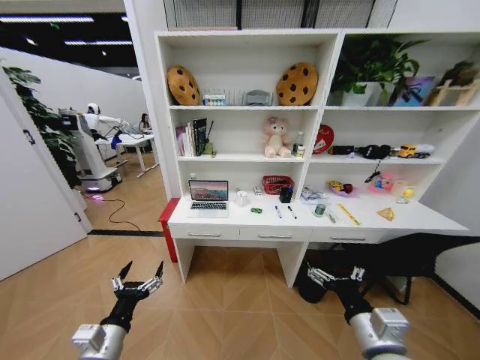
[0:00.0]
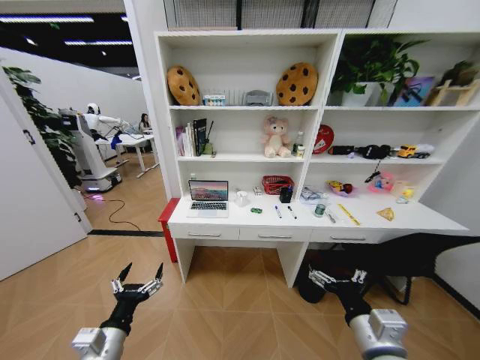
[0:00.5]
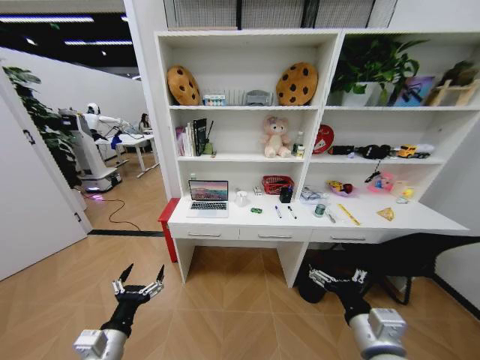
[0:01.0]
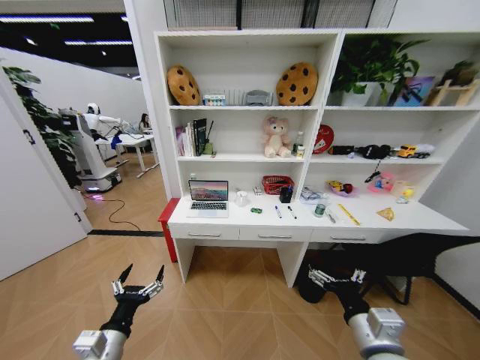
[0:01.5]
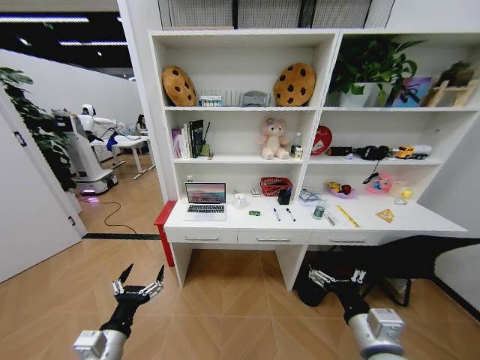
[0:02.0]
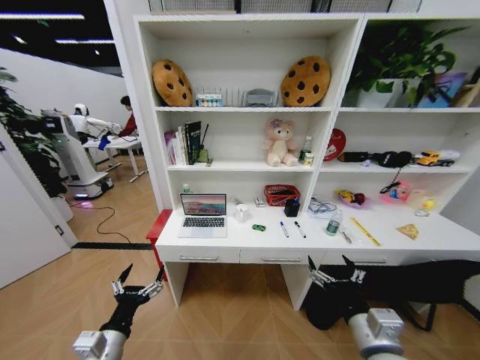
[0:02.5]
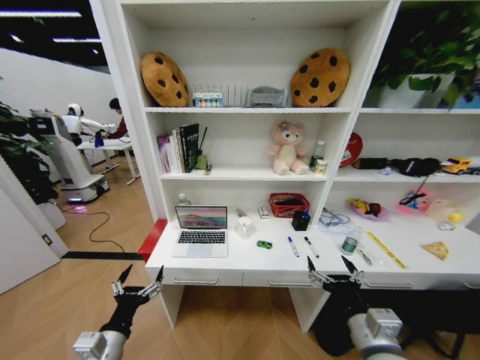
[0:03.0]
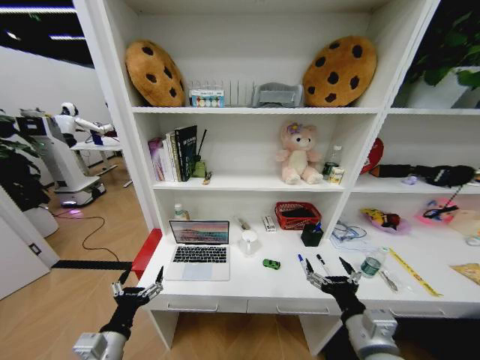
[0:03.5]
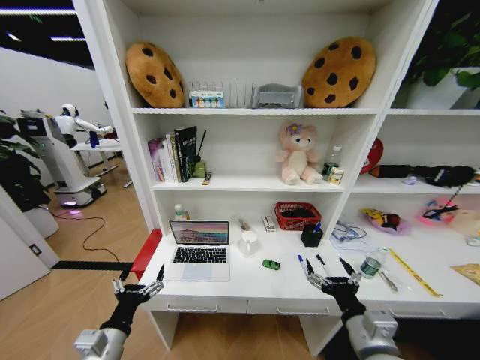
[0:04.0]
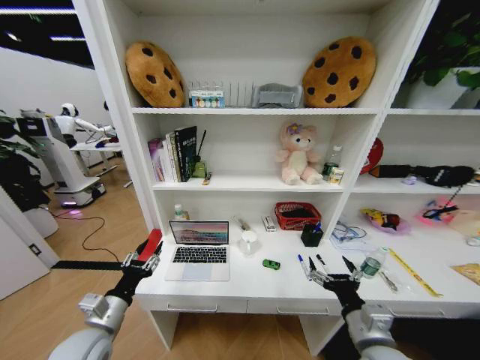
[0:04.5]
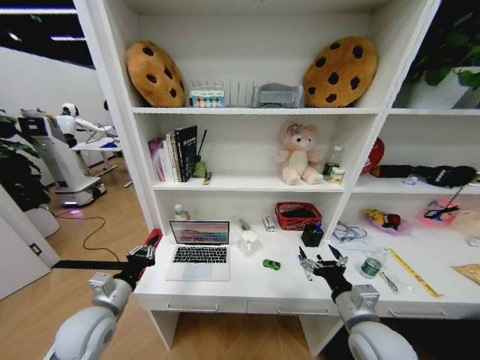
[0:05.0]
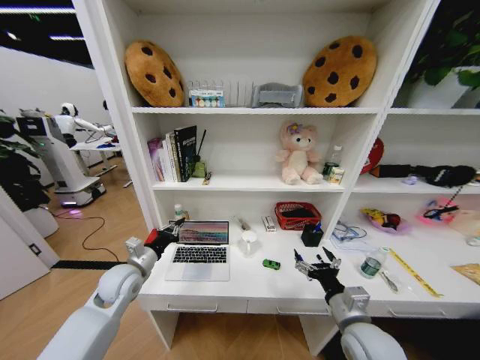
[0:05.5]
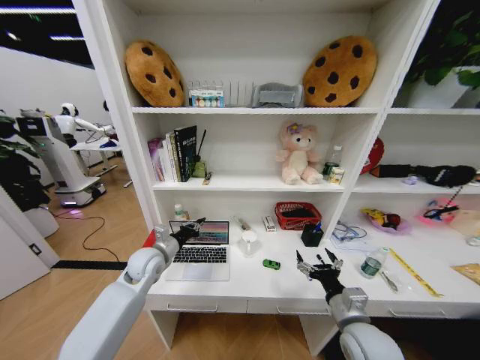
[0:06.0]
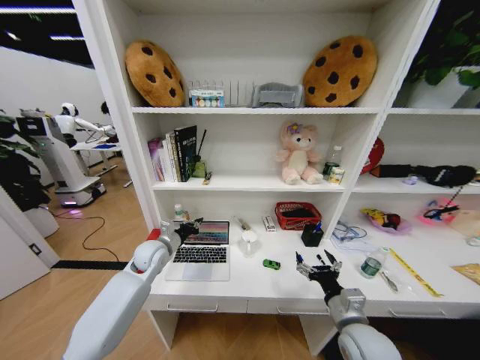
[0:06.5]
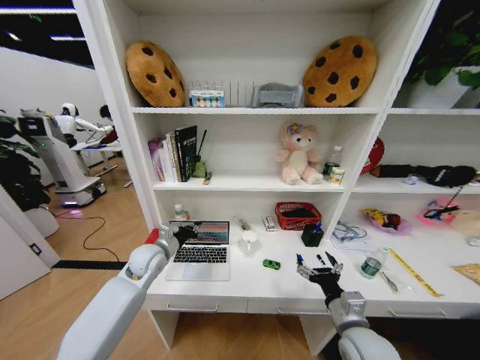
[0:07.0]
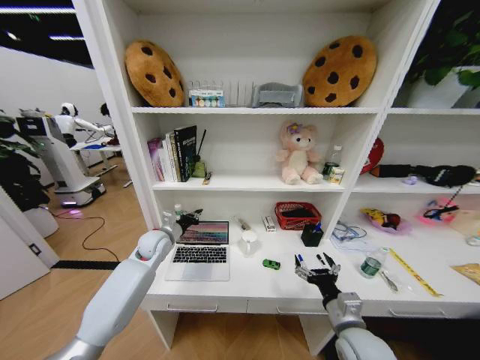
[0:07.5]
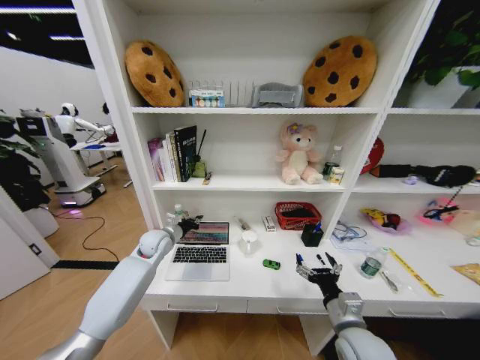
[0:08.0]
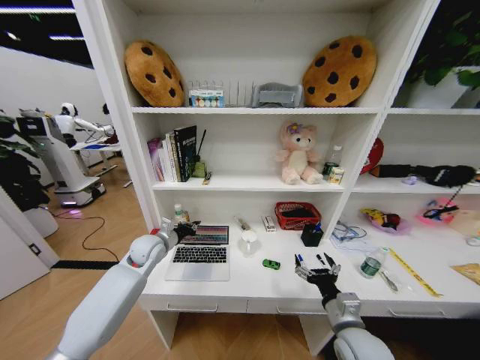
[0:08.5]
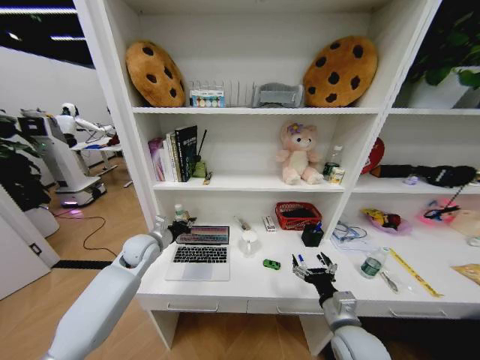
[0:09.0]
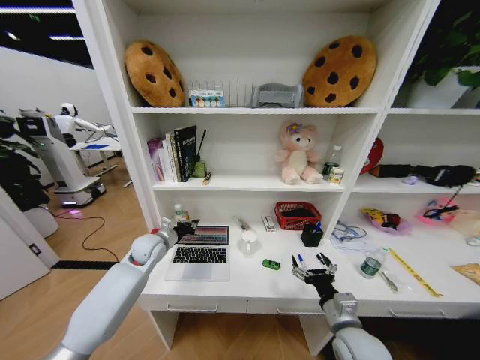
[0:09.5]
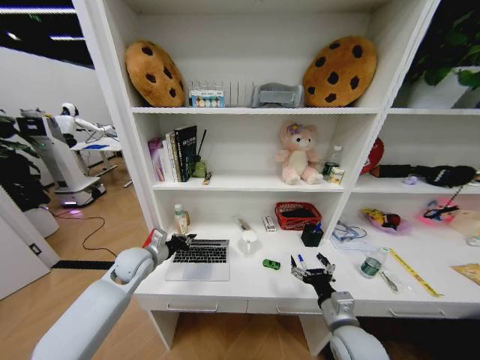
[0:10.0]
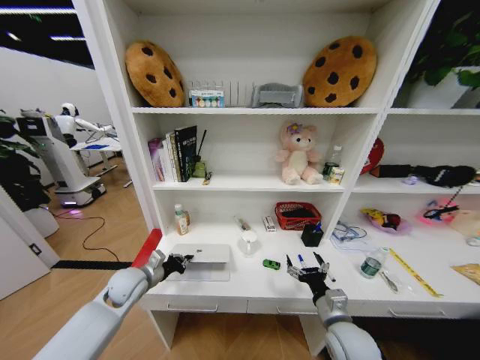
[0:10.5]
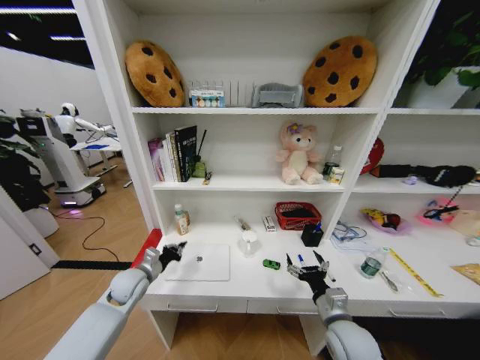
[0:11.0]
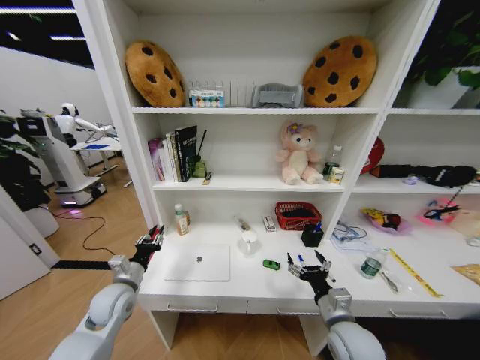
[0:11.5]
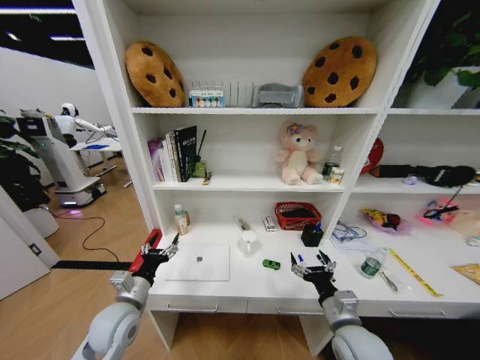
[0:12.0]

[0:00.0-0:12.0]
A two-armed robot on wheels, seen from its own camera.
Task of the whole recording: Organize the objects on the table.
0:04.0 to 0:06.0: The right gripper travels forward by about 5 cm. The left gripper moves forward, about 25 cm, and closes its fingers.
0:06.0 to 0:08.0: The left gripper shifts some 10 cm forward.
0:08.0 to 0:10.0: The left gripper travels backward by roughly 10 cm.
0:10.0 to 0:12.0: The left gripper is displaced backward by about 15 cm, and opens up.

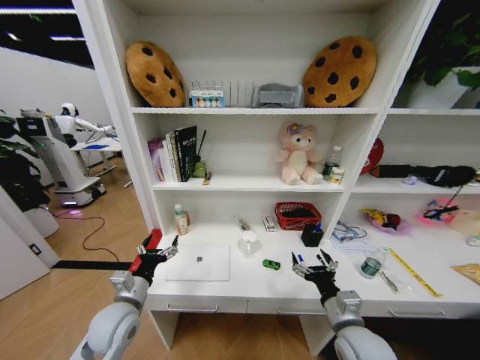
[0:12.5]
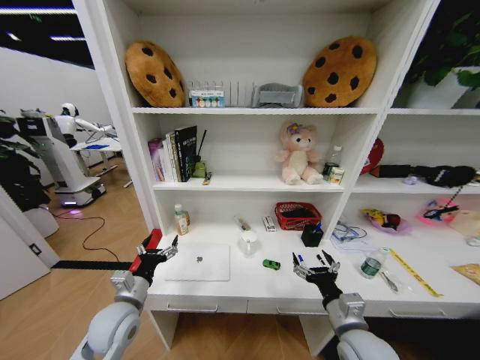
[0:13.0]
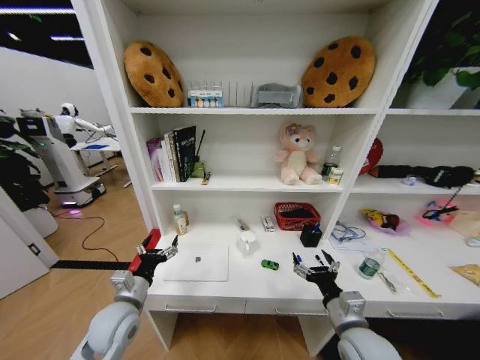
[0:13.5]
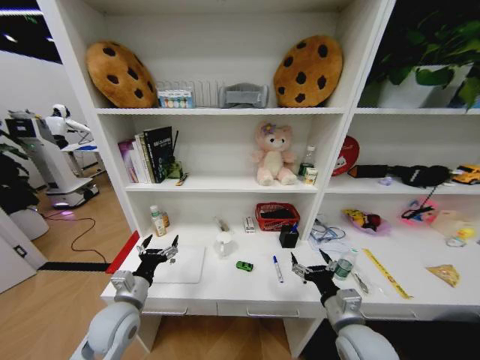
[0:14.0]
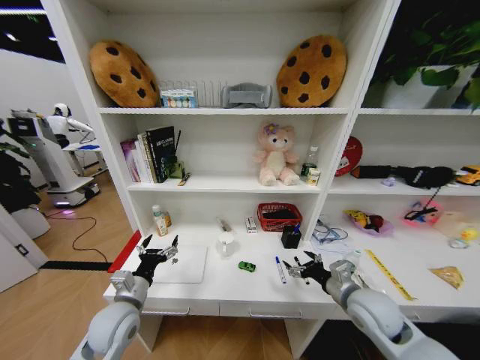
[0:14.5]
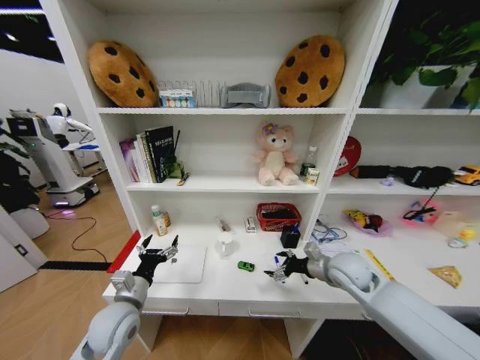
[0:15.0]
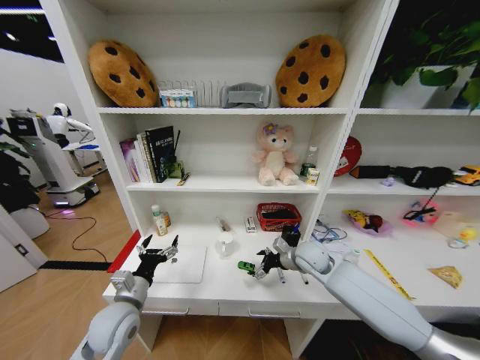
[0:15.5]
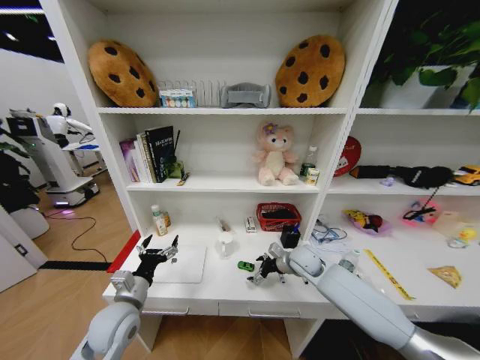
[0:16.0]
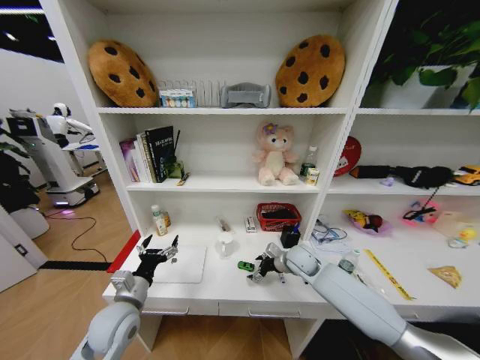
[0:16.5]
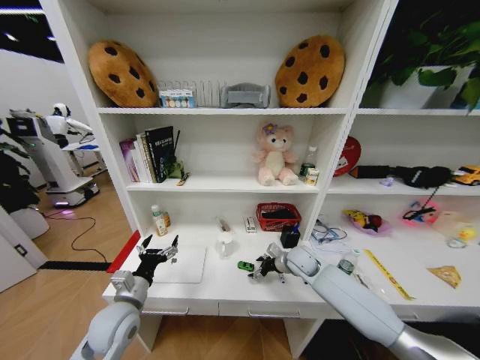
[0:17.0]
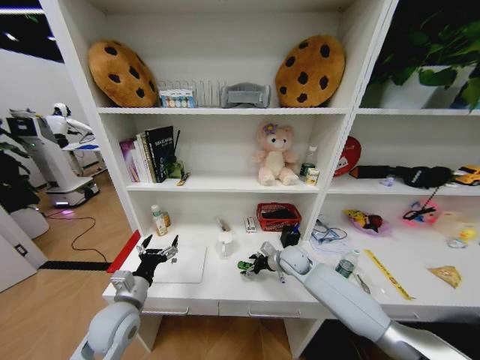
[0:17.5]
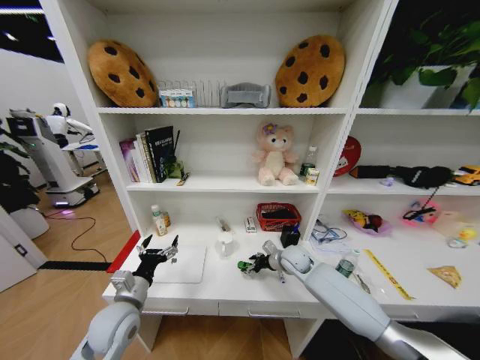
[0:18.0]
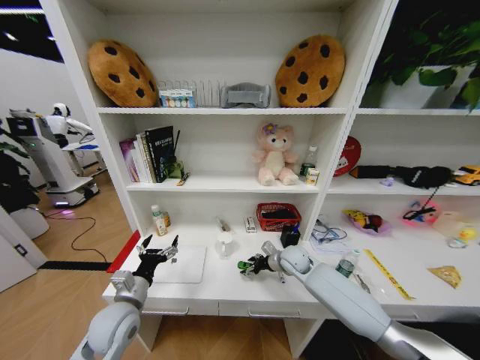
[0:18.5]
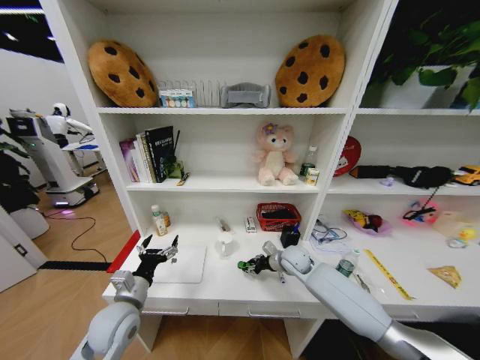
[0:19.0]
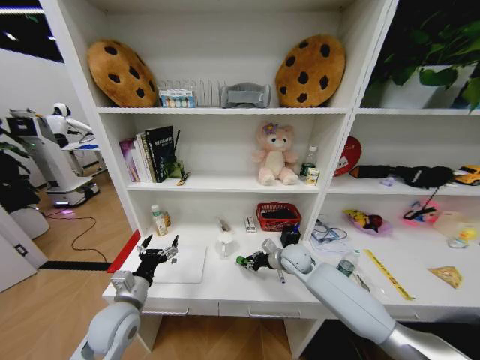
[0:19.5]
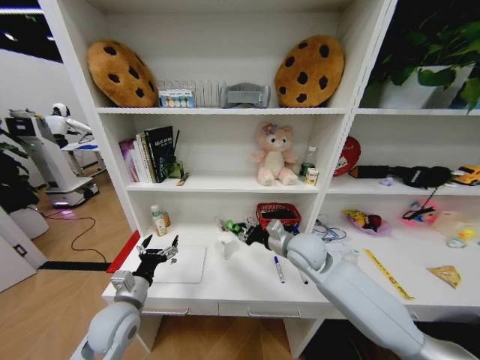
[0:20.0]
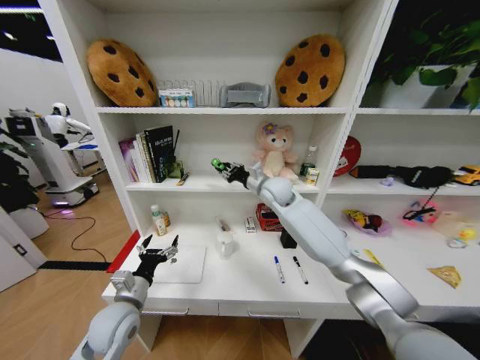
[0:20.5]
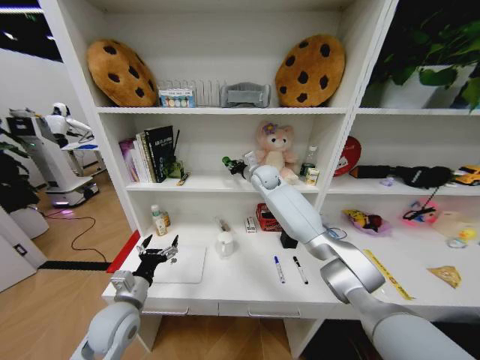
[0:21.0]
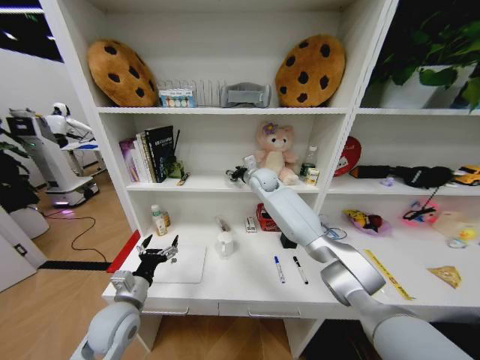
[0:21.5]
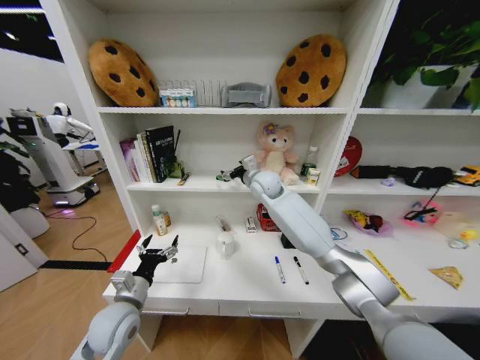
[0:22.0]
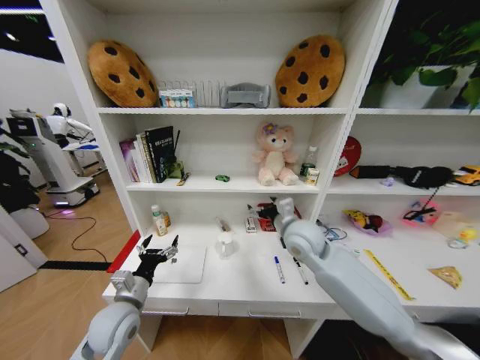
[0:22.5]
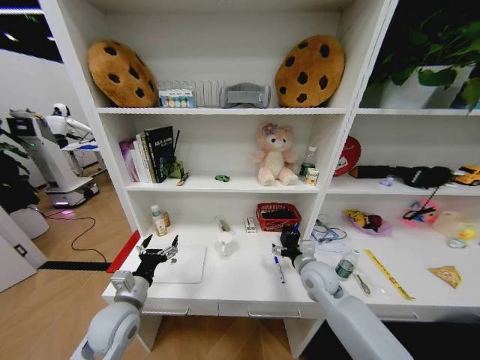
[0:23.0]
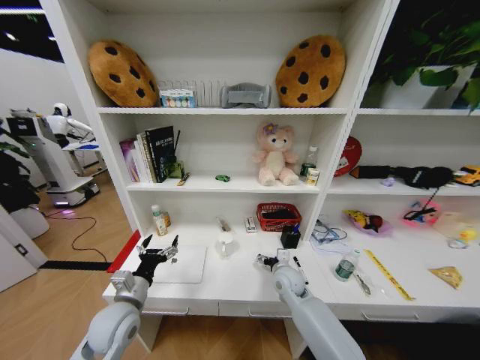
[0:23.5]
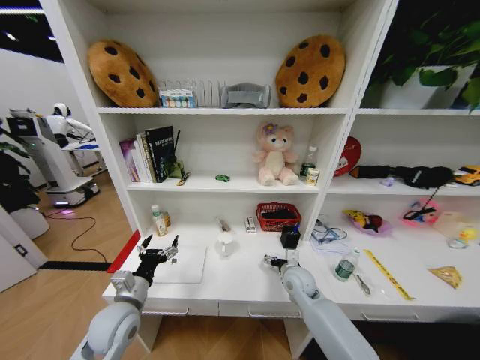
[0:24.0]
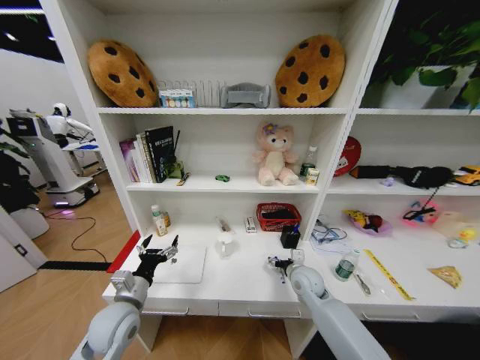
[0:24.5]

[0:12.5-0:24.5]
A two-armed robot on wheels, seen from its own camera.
Task of the whole recording: Organize the objects on the table.
0:12.5 to 0:14.5: The right gripper travels forward and to the right by approximately 10 cm.
0:14.5 to 0:16.5: The right gripper moves forward and to the left, about 20 cm.
0:16.5 to 0:18.5: The grippers move only a little.
0:18.5 to 0:20.5: The right gripper travels upward and forward by approximately 25 cm, and closes.
0:20.5 to 0:22.5: The right gripper shifts approximately 15 cm backward, and opens.
0:22.5 to 0:24.5: The right gripper travels downward by about 20 cm.

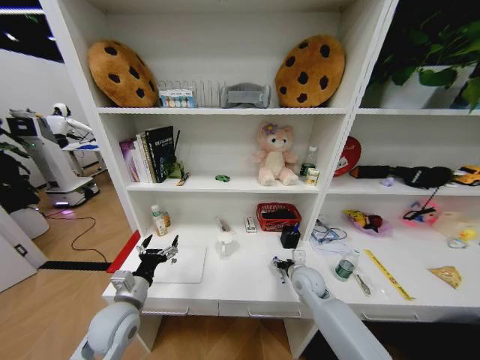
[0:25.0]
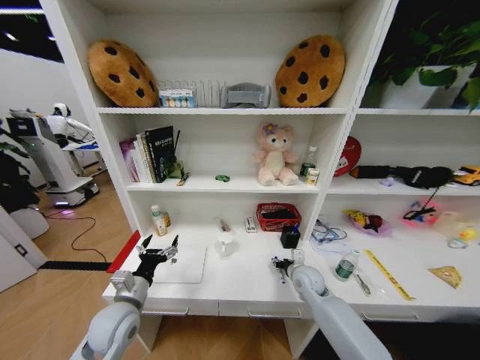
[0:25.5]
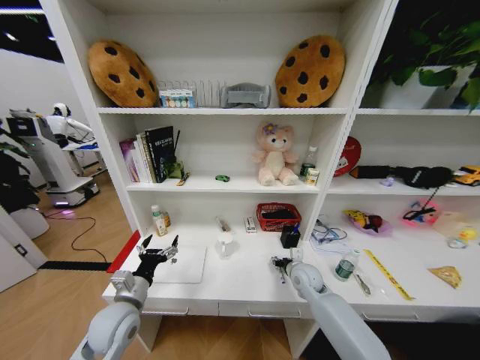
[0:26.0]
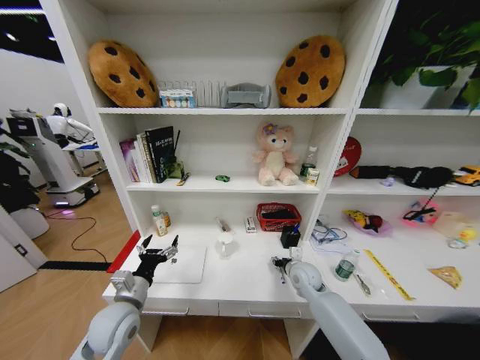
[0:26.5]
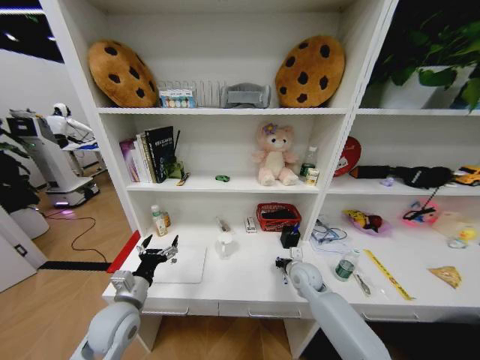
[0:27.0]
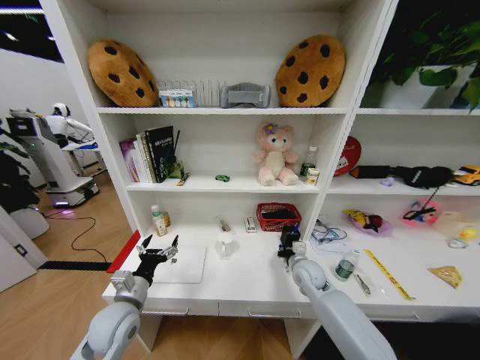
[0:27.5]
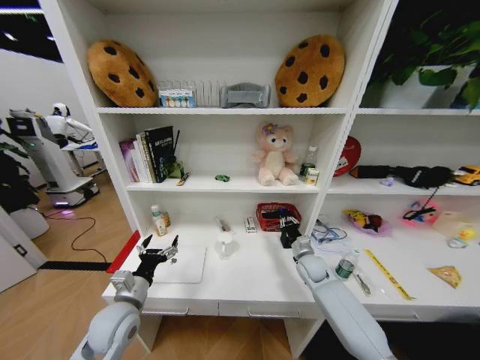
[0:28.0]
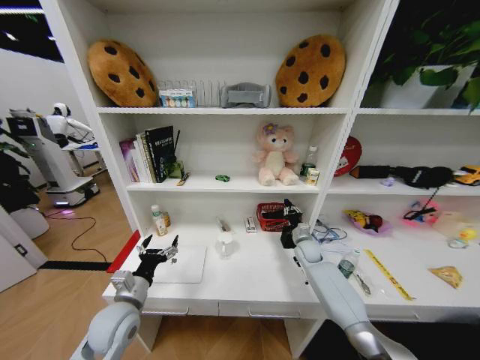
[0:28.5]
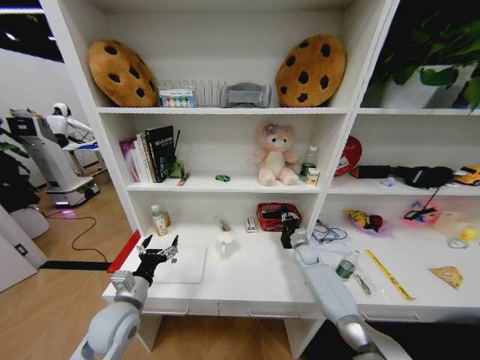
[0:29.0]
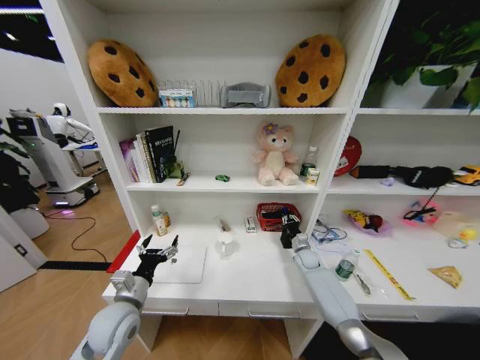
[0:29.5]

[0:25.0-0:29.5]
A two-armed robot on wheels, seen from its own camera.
Task of the whole recording: Organize the objects on the table.
0:27.0 to 0:29.5: The right gripper shifts roughly 15 cm forward, to the right and downward.
